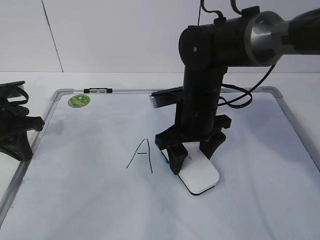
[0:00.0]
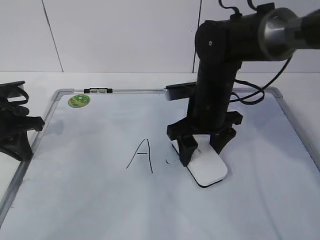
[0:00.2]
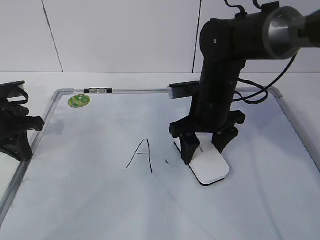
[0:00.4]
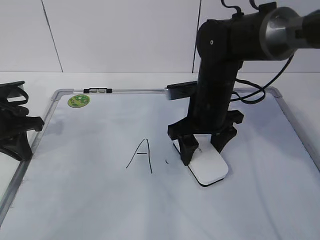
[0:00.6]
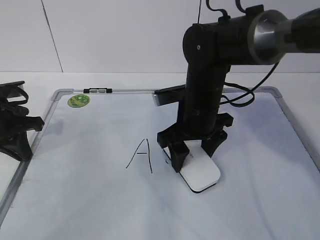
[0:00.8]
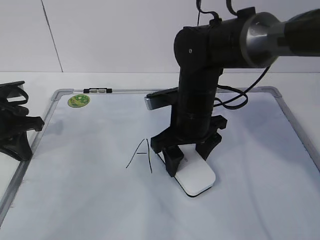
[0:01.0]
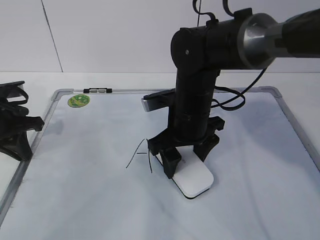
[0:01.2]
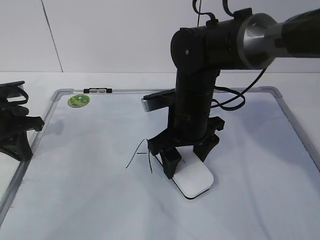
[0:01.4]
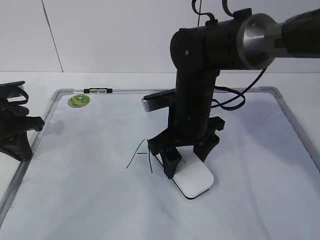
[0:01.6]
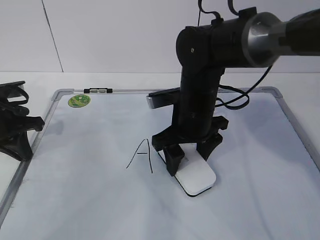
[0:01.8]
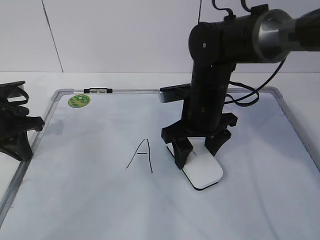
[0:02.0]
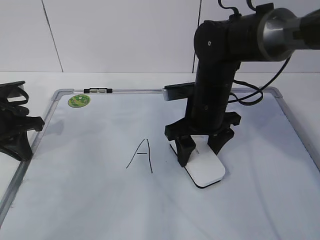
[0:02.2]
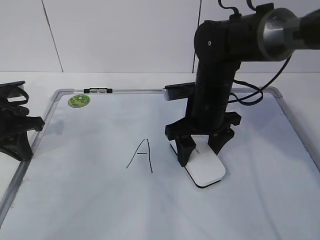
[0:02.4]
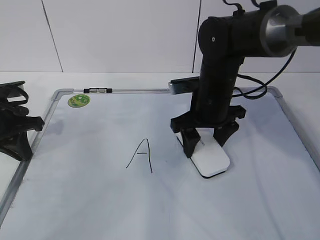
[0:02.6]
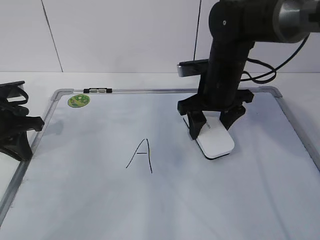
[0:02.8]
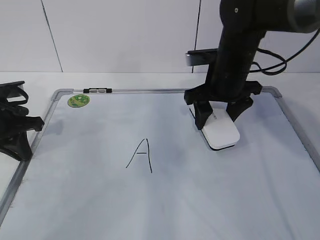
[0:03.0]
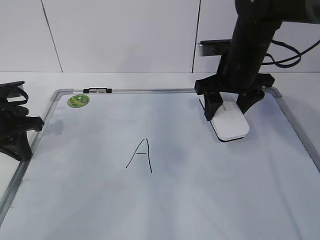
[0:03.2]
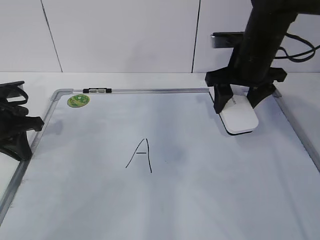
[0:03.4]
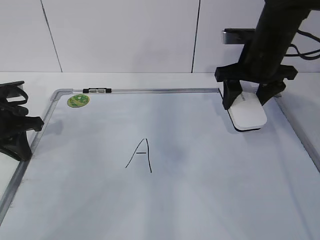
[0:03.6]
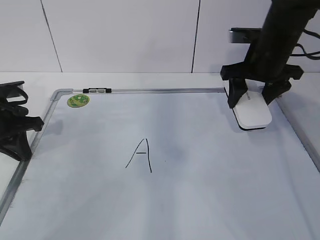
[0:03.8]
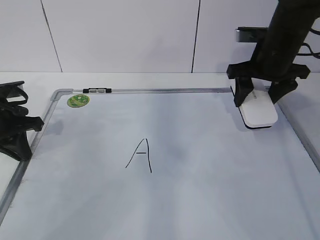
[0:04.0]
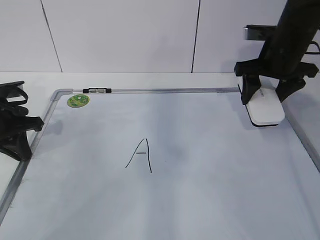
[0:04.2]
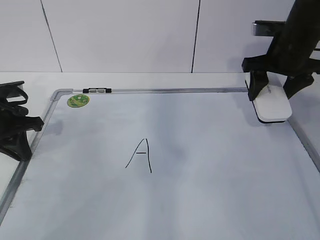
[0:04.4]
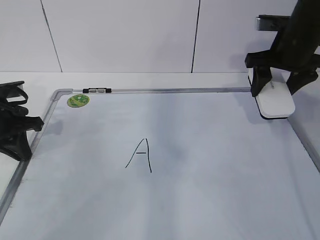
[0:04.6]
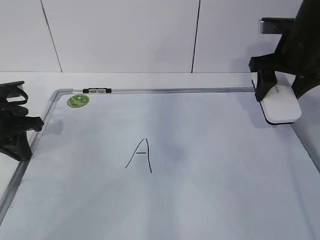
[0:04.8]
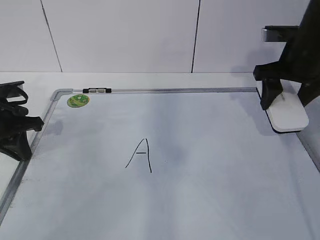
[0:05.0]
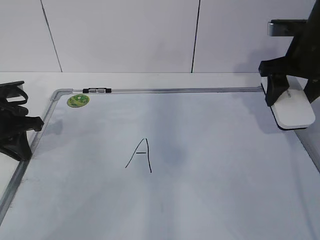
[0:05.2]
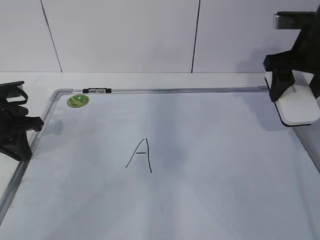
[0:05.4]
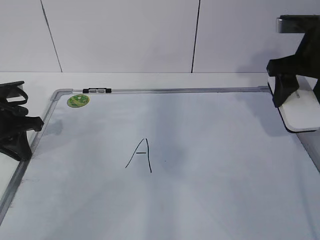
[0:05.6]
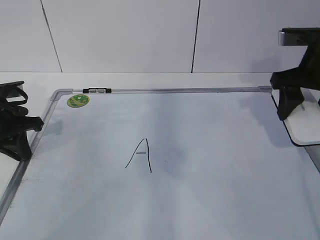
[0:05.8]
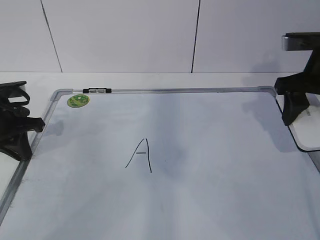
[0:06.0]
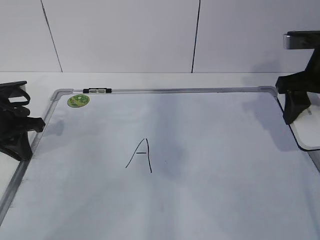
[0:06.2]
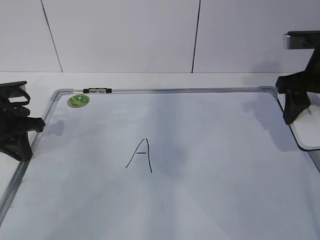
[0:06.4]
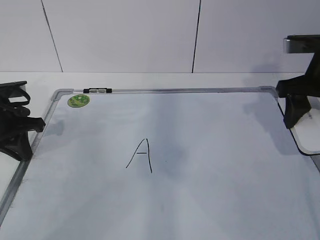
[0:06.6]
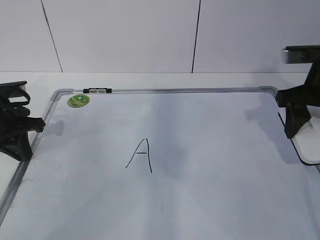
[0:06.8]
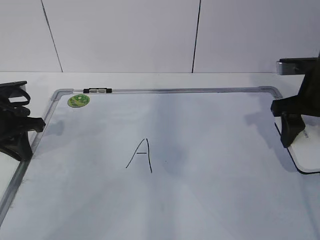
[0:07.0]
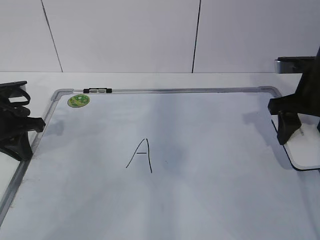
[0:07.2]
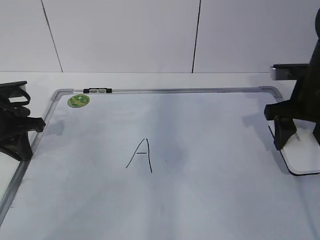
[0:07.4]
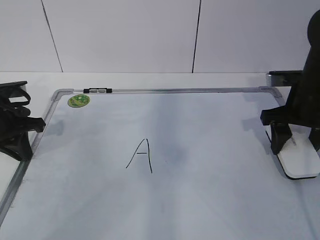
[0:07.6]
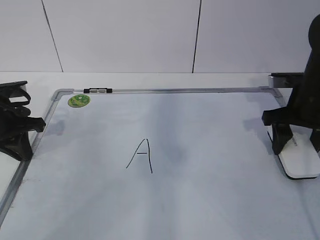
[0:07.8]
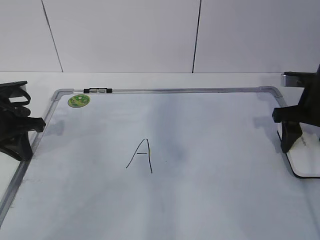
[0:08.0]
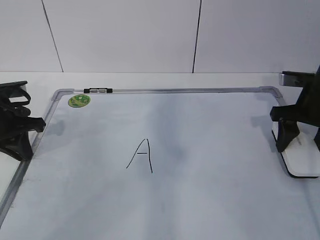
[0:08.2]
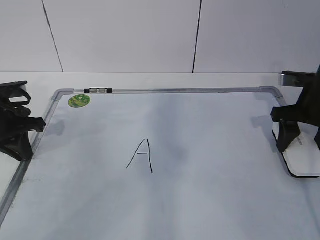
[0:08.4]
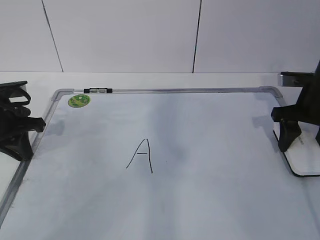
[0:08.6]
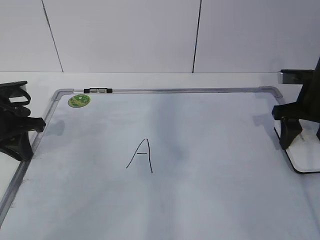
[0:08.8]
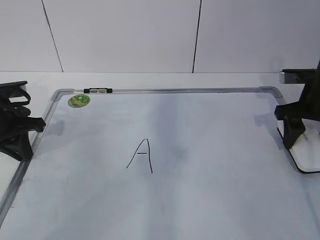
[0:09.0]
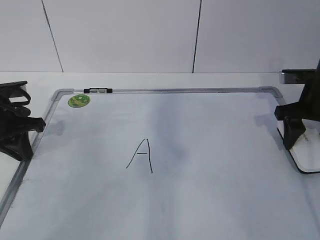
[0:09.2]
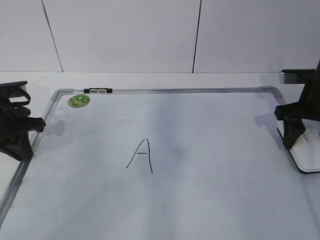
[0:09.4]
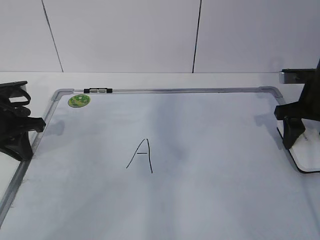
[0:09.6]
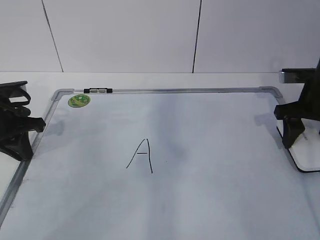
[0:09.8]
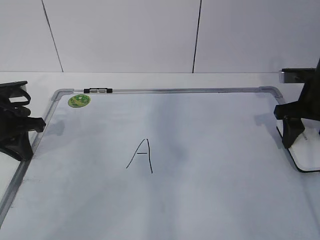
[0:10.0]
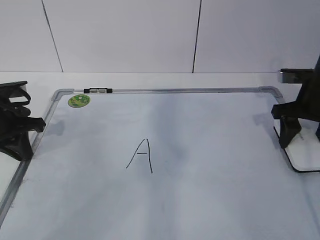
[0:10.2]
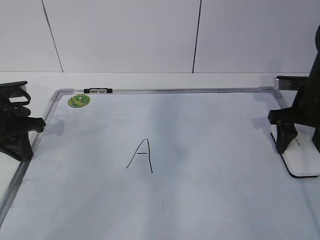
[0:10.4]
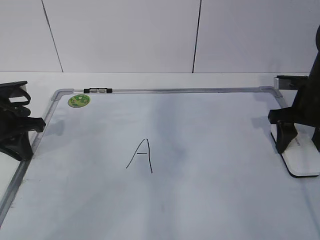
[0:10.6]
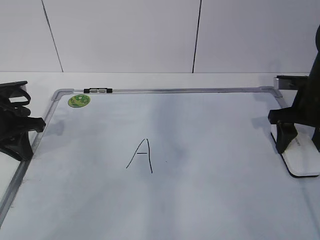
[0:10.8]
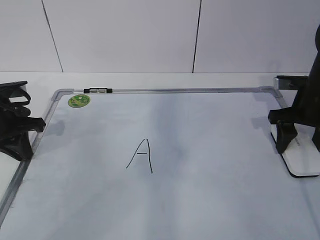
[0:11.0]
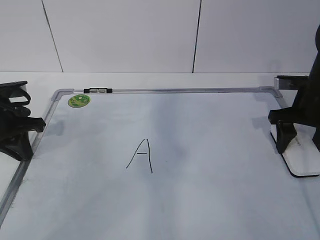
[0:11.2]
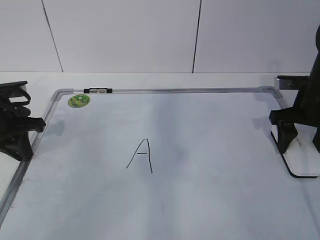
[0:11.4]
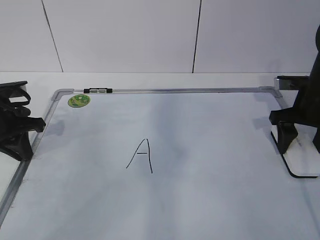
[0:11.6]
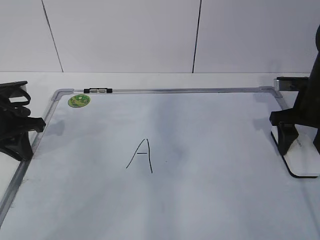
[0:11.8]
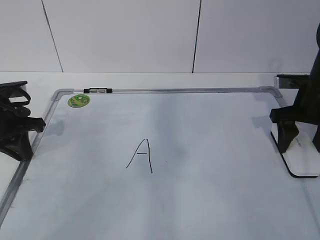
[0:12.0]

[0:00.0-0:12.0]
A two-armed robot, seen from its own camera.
Task of the whole recording: pick up the eraser on the blackboard and erase the letter "a".
Step, 0:00.0 to 0:05.8: Put down the eraser with your right hand.
0:00.0 to 0:01.6: The grippers make only small movements.
0:01.6 to 0:03.0: The right gripper is displaced to the right and forward by some 10 cm.
0:03.0 to 0:04.4: The right gripper is displaced to the right by roughly 10 cm.
0:04.4 to 0:06.0: The right gripper travels backward by roughly 10 cm.
0:06.0 to 0:07.6: The right gripper moves downward, some 5 cm.
0:07.6 to 0:10.4: The grippers move only a little.
0:10.4 to 0:12.0: The right gripper opens up.

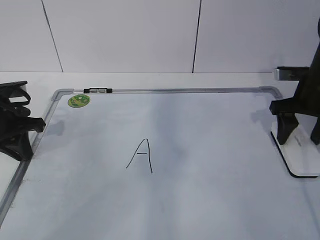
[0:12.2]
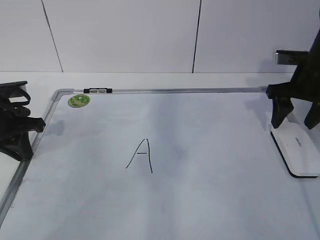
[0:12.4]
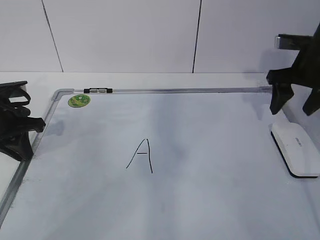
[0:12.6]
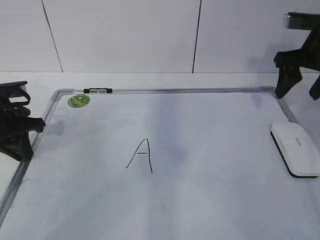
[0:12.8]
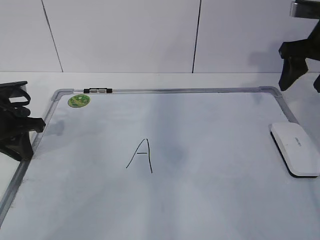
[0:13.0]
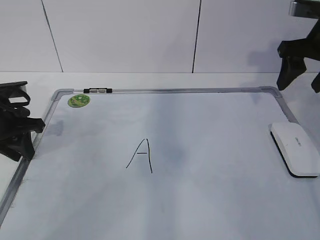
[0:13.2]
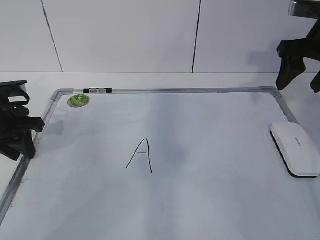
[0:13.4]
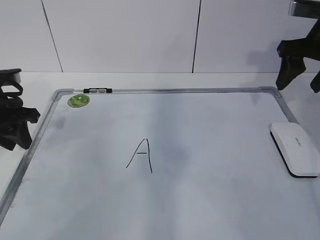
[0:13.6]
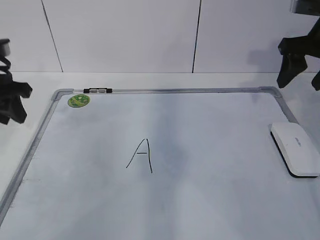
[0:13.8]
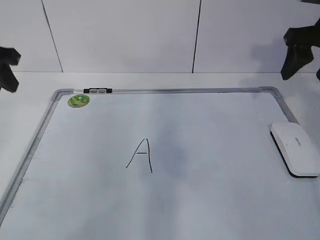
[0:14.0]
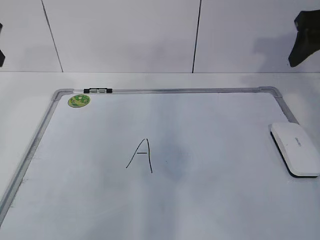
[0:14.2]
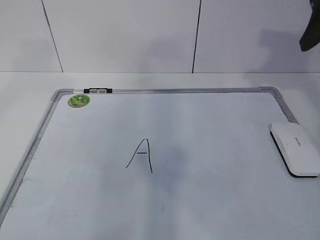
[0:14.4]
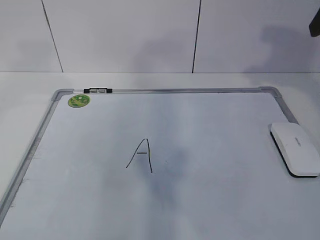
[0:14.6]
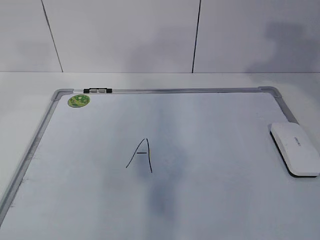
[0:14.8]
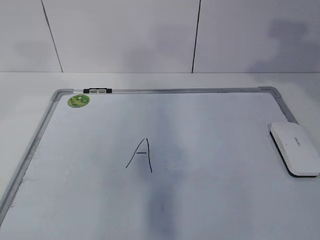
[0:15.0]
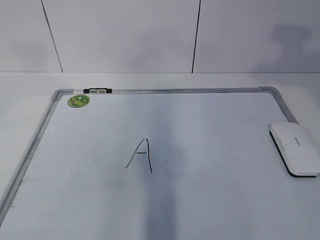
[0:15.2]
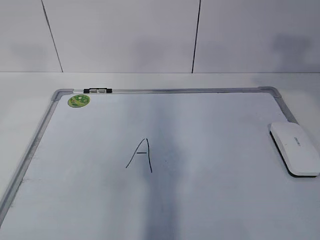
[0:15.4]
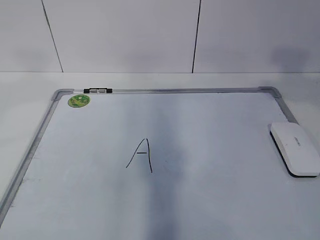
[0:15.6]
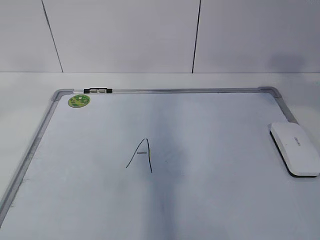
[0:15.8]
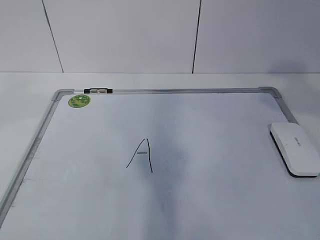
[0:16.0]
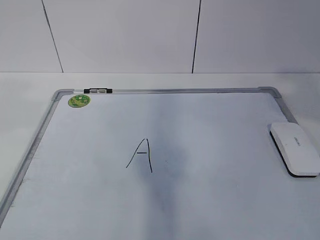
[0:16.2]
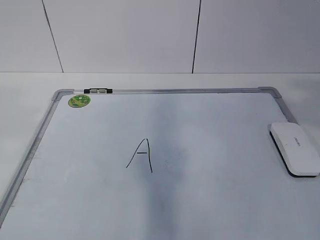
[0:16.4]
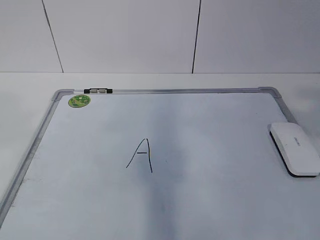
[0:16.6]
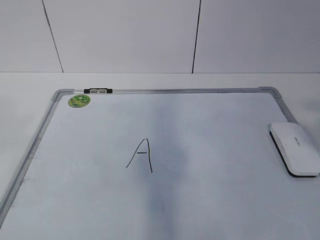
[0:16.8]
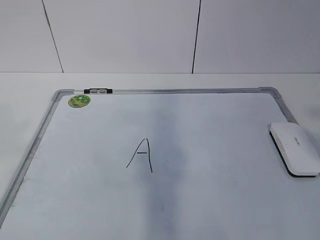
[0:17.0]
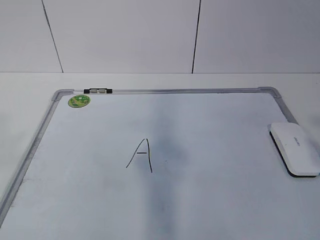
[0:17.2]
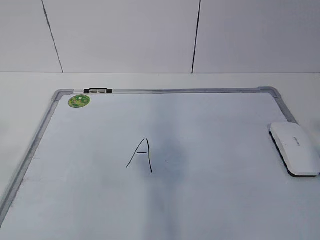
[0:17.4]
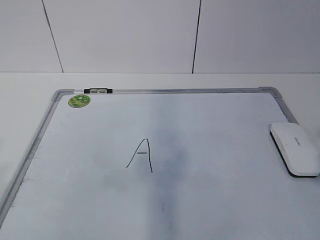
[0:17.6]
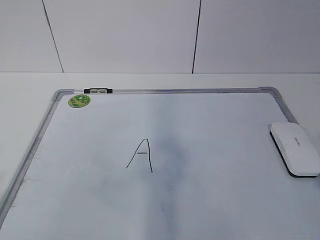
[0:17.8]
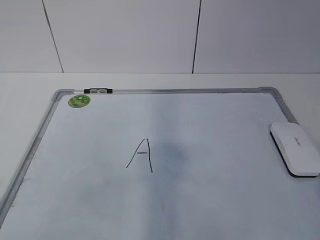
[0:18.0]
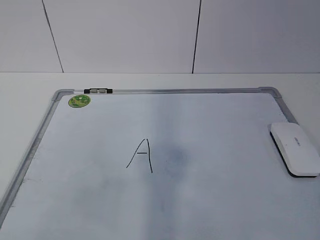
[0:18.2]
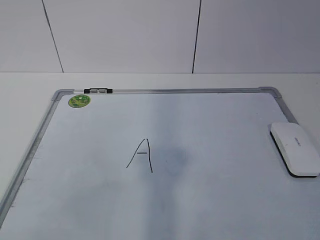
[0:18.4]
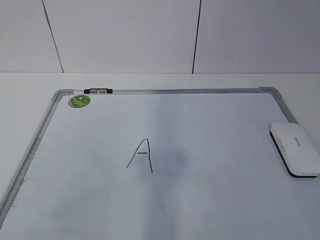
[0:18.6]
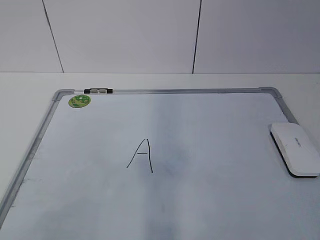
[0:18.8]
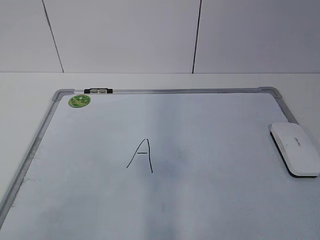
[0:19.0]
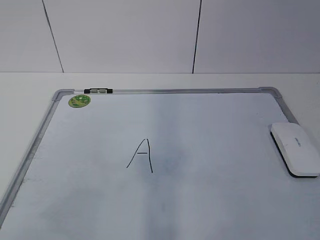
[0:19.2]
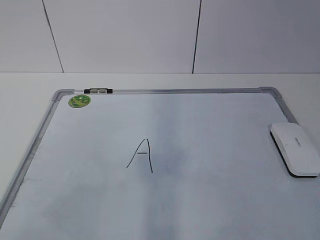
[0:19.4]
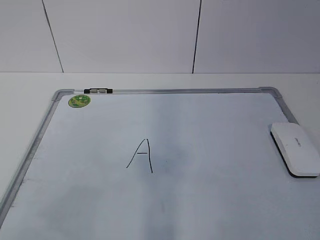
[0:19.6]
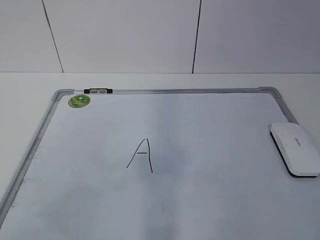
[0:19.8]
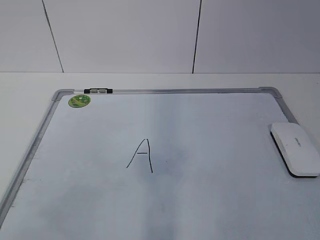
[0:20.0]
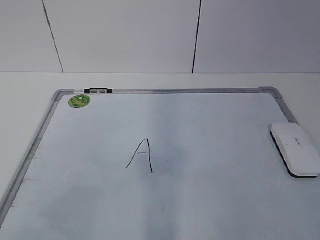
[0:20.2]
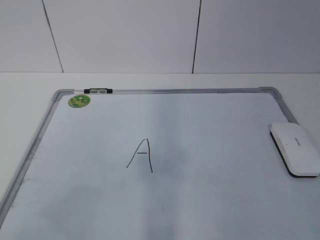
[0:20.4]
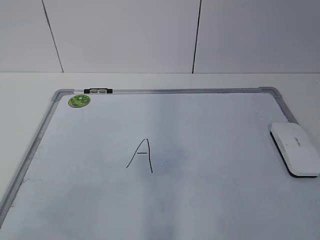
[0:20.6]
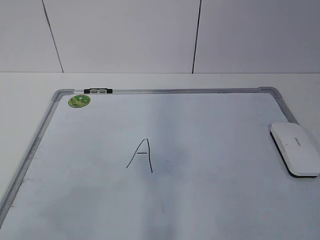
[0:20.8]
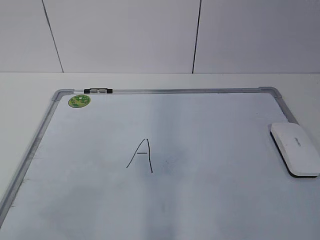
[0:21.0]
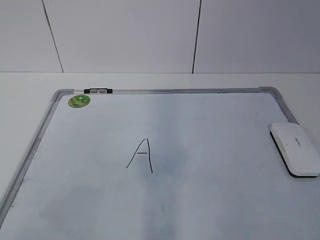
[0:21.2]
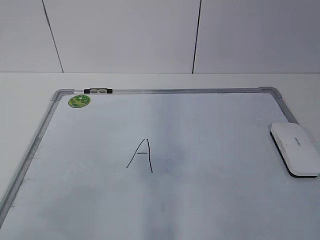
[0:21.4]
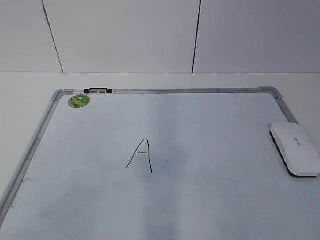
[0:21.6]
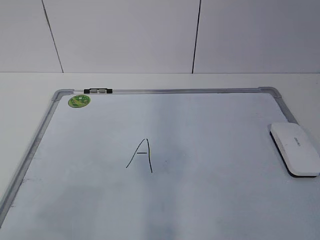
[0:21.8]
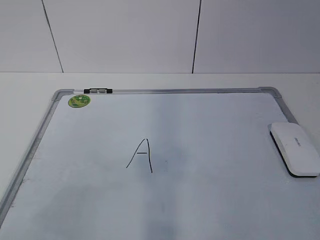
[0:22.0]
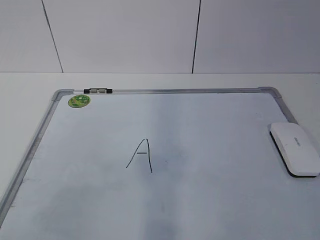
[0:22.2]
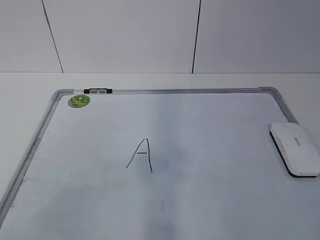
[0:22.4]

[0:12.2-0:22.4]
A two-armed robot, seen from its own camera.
Task of the whole recording: pick up the eraser on the blackboard and erase the letter "a".
0:12.2 to 0:13.6: The right gripper goes approximately 10 cm upward; the left gripper opens its fingers.
0:13.6 to 0:15.2: Both grippers move upward and backward, roughly 25 cm.
0:15.2 to 0:16.6: The right gripper is displaced backward by about 20 cm.
